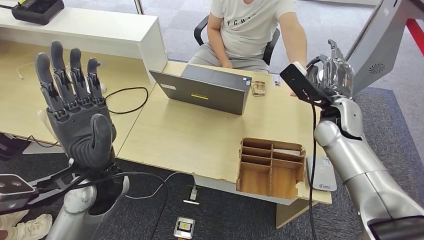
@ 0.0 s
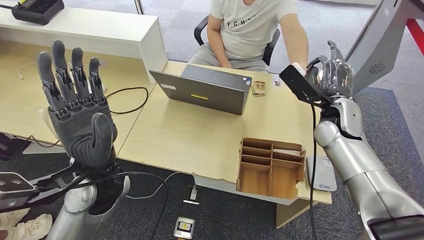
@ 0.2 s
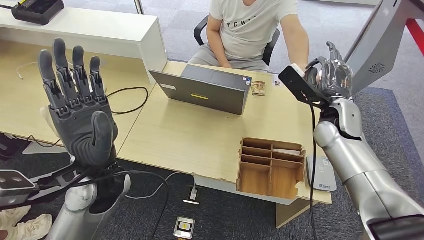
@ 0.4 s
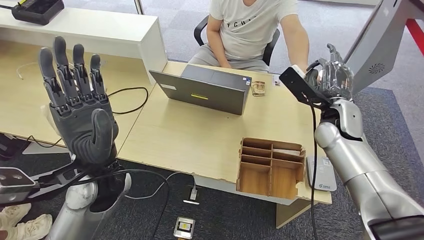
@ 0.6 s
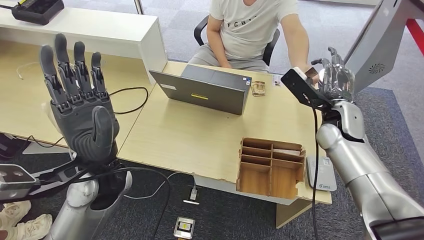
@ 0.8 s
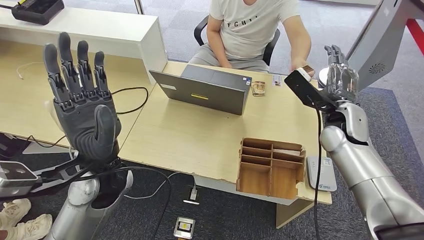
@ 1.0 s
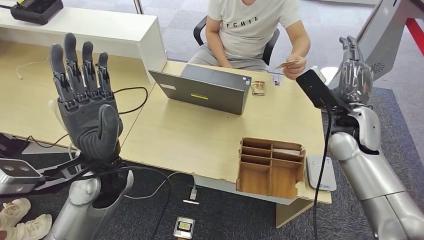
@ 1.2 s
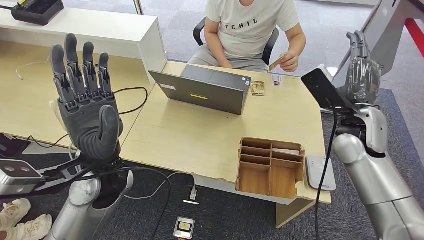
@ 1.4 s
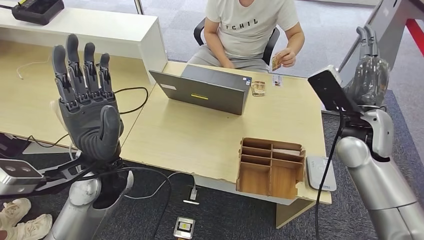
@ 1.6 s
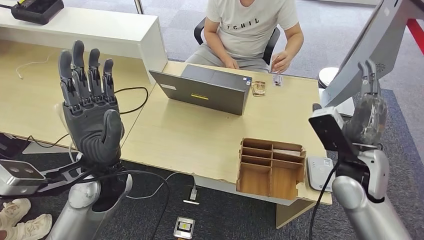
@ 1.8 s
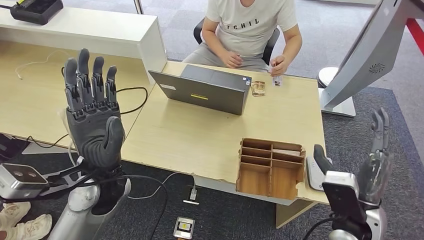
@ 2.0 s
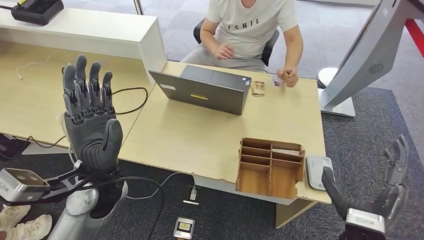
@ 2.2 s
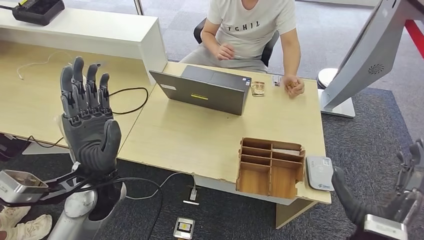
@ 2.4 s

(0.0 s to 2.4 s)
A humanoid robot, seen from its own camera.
Step, 0.2 s - 2.4 s: Hand the room key to the person.
0.0 s - 1.2 s: The hands stay close to where they were, moving slightly.
